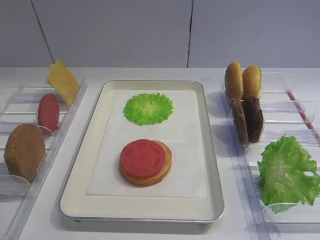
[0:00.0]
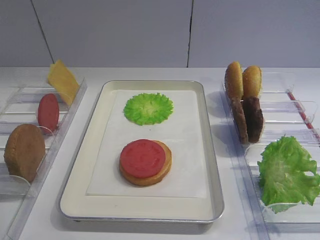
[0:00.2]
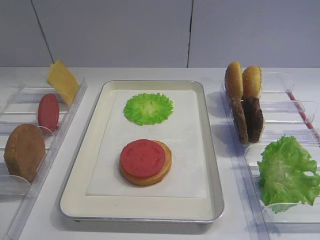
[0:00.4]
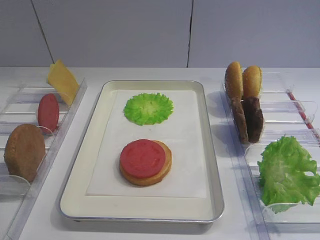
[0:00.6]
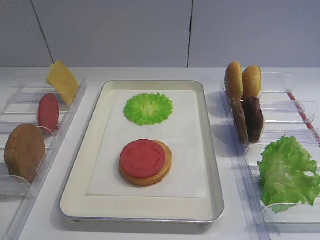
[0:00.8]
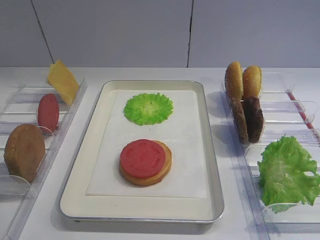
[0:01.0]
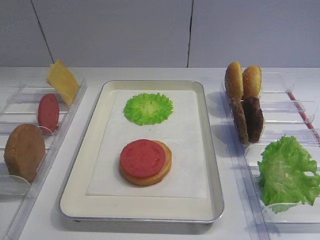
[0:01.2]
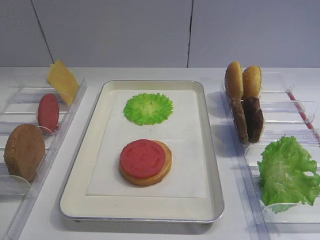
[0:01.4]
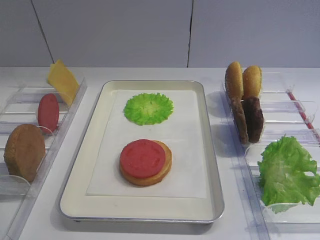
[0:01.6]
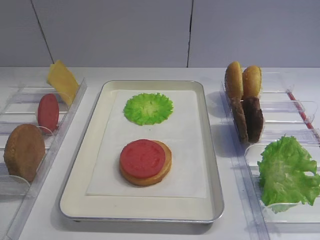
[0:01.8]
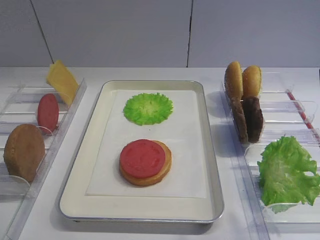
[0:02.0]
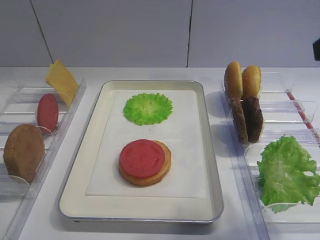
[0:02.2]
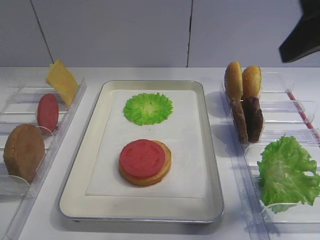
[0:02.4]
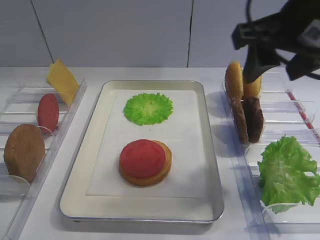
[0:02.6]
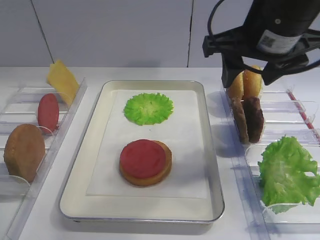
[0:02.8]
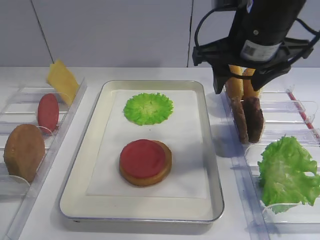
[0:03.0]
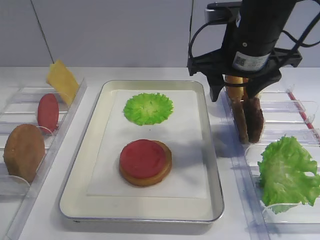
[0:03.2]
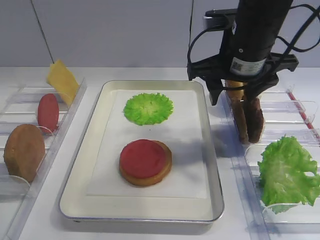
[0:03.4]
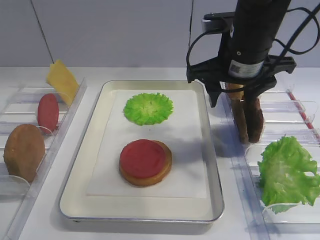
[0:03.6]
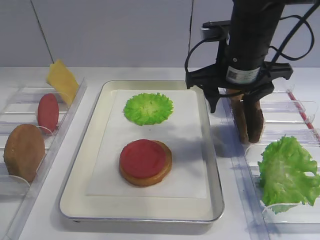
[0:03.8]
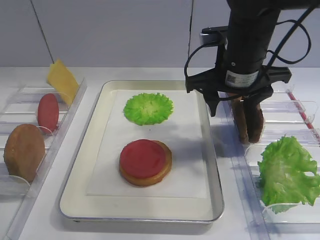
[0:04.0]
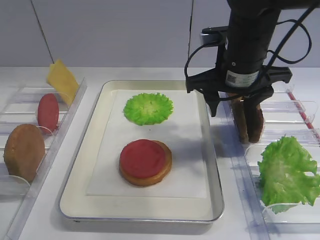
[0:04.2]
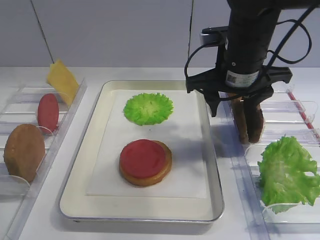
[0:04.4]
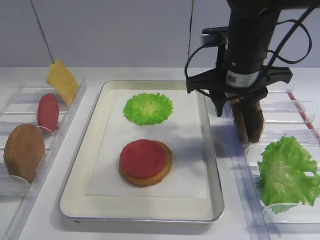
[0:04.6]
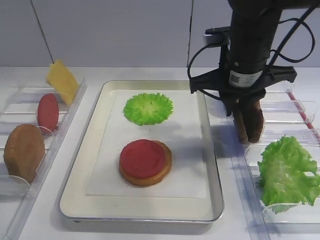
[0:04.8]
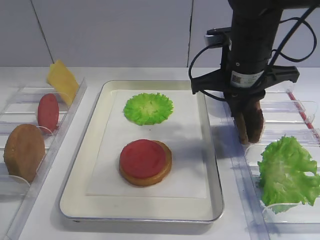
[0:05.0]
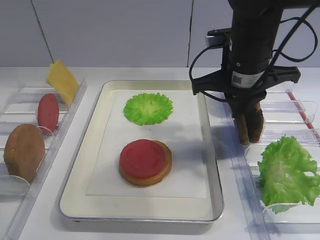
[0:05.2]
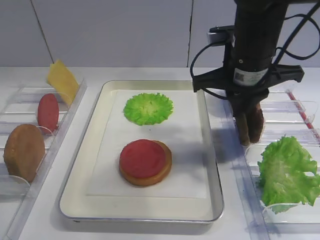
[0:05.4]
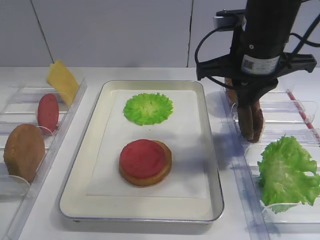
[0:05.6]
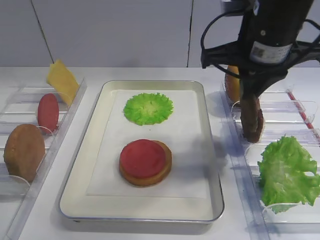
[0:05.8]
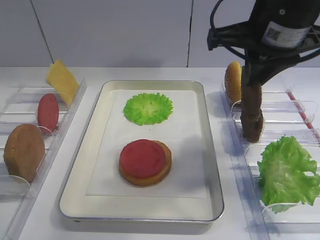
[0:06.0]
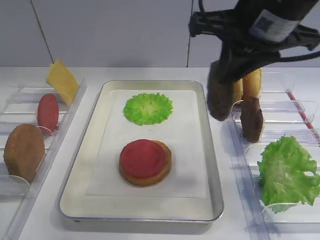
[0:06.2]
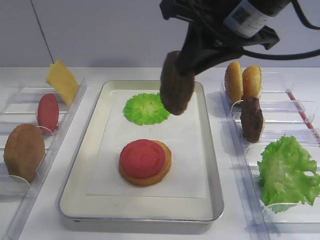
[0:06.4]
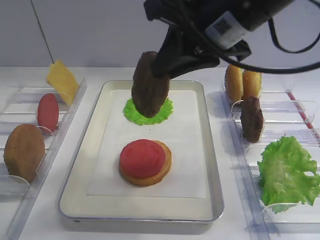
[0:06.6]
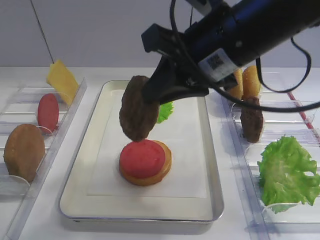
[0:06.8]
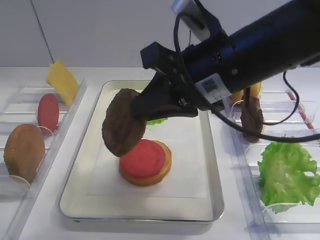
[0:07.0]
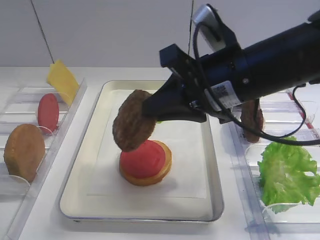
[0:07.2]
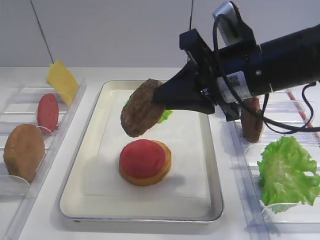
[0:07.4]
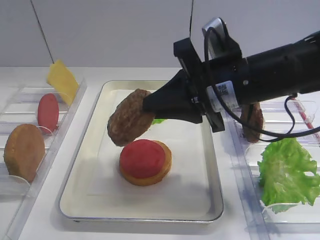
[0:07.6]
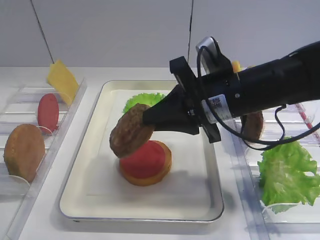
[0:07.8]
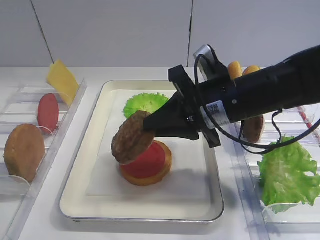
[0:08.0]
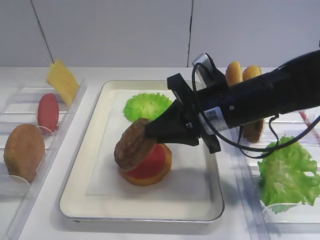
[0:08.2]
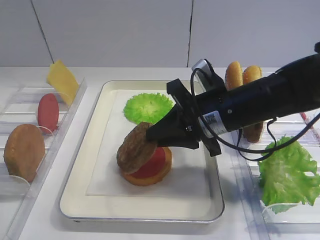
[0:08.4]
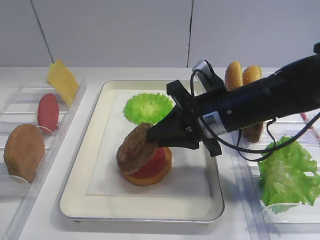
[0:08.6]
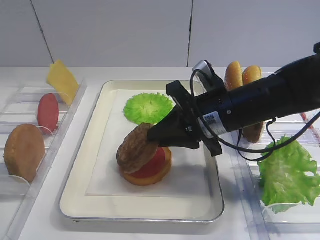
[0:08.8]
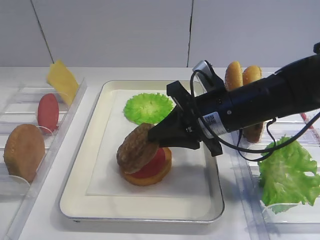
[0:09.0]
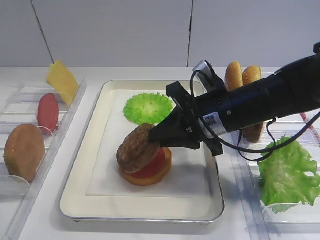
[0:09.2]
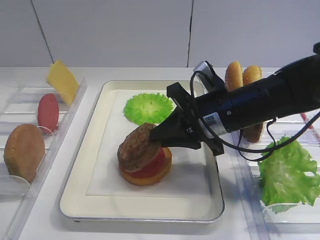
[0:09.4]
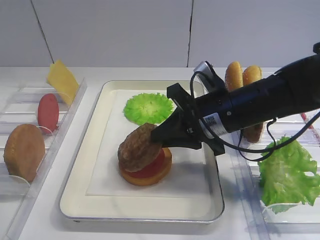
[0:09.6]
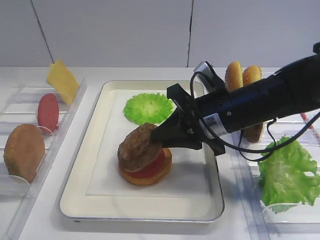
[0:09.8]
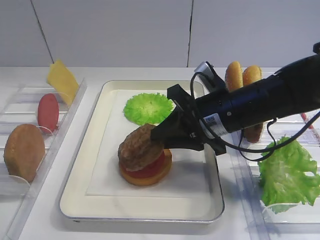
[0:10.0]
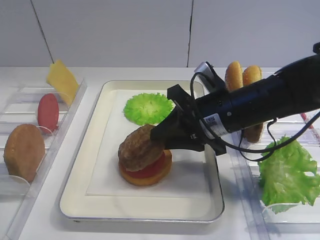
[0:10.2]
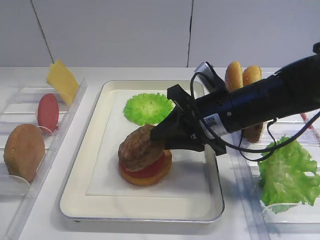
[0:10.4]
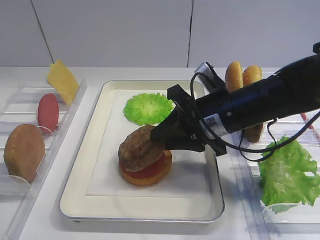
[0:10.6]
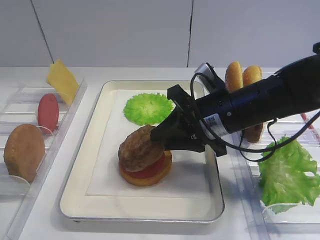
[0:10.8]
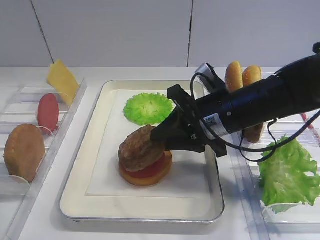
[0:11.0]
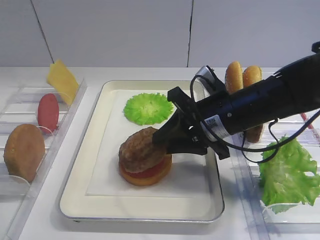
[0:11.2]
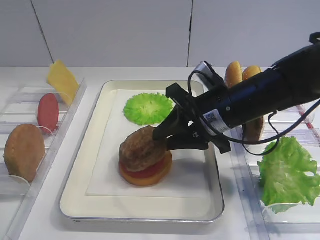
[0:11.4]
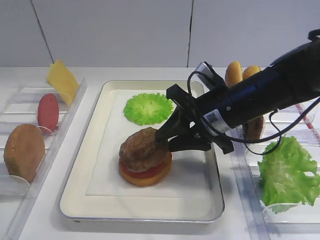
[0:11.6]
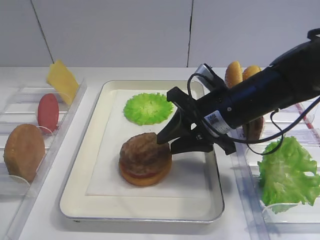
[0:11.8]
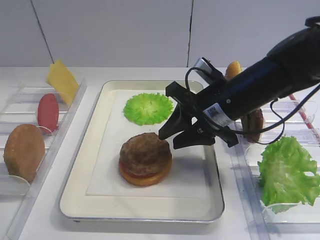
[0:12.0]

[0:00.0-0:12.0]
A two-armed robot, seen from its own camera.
Step, 0:00.0 to 0:05.8: Pick up the cutlet with the right gripper.
0:01.6 to 0:03.0: The right gripper goes about 25 cm forward and to the left.
0:03.0 to 0:04.4: The right gripper moves downward, some 5 cm.
0:04.4 to 0:06.0: The right gripper shifts approximately 10 cm upward, and closes up.
0:06.0 to 0:07.6: The right gripper moves downward, about 10 cm.
0:07.6 to 0:09.0: The right gripper travels downward by about 5 cm.
0:09.0 to 0:10.4: Neither gripper changes place.
0:10.4 to 0:12.0: There are only small adjustments of the grippers.

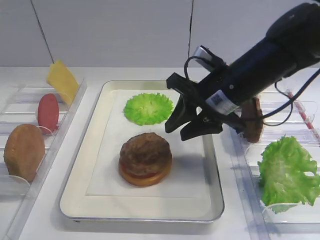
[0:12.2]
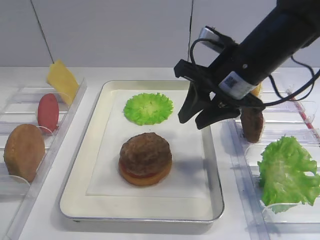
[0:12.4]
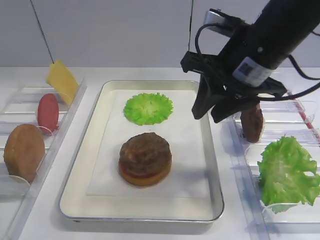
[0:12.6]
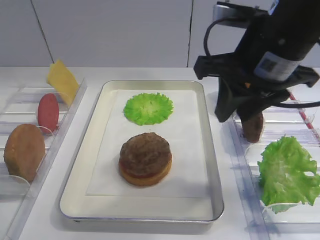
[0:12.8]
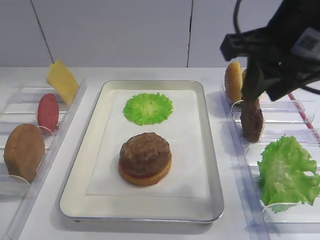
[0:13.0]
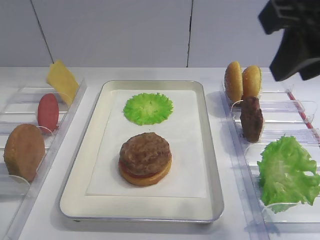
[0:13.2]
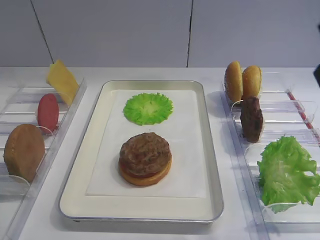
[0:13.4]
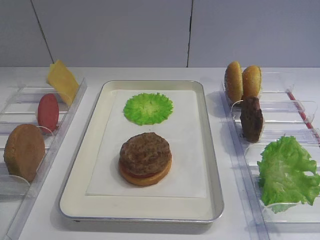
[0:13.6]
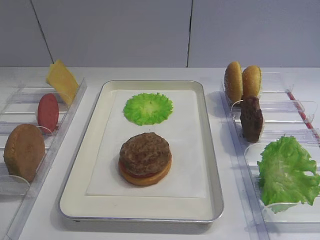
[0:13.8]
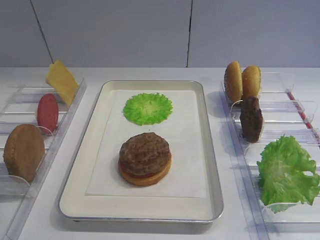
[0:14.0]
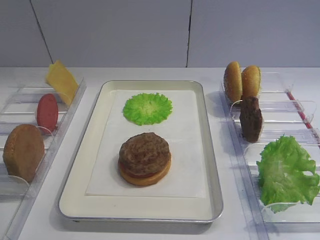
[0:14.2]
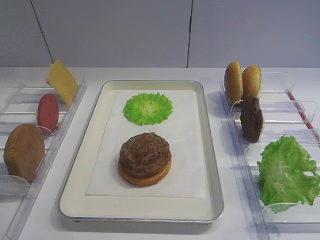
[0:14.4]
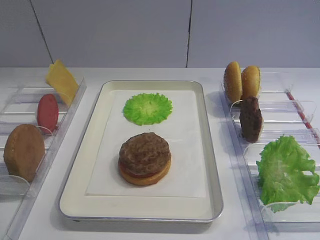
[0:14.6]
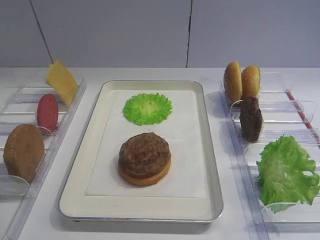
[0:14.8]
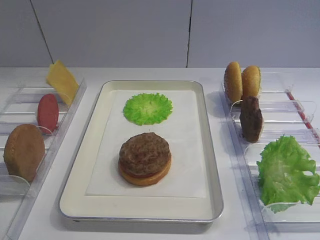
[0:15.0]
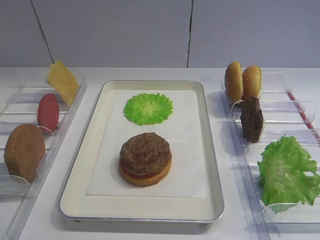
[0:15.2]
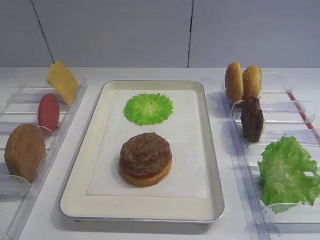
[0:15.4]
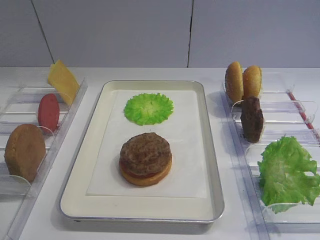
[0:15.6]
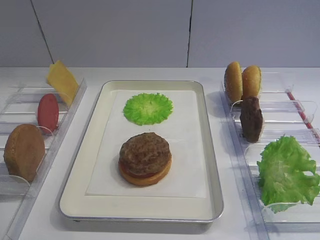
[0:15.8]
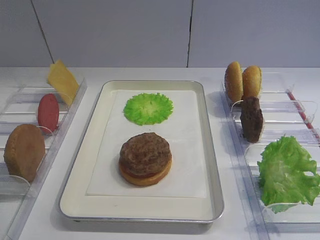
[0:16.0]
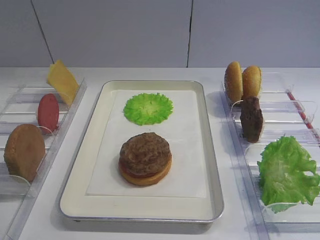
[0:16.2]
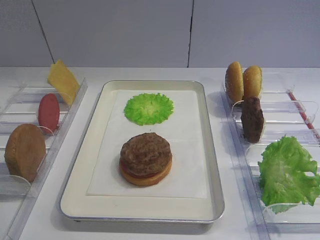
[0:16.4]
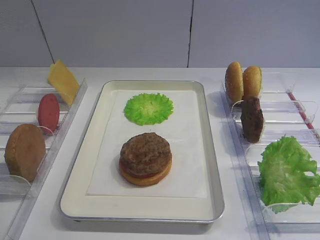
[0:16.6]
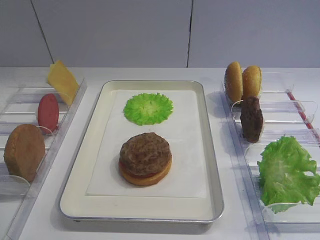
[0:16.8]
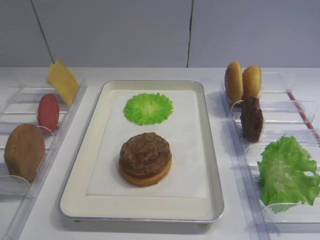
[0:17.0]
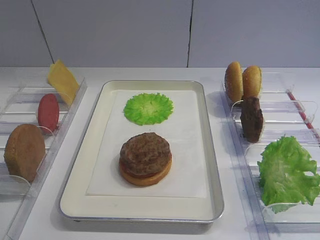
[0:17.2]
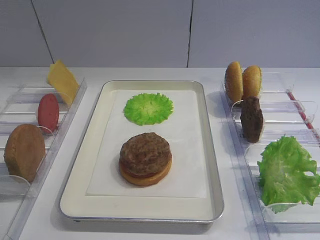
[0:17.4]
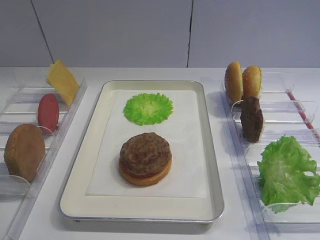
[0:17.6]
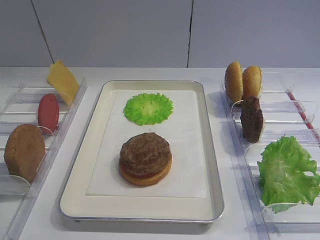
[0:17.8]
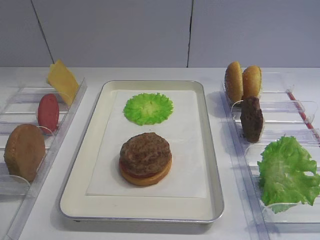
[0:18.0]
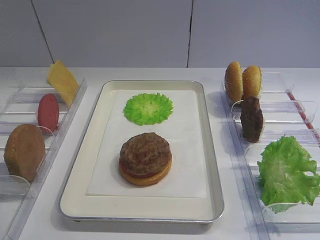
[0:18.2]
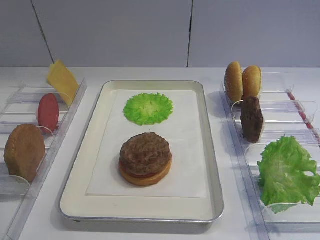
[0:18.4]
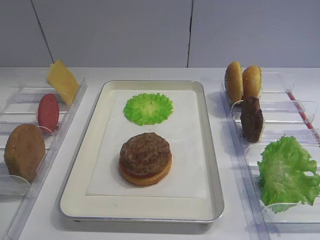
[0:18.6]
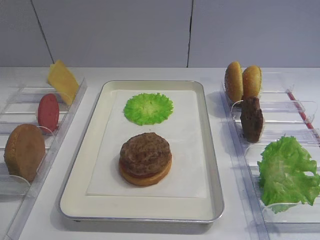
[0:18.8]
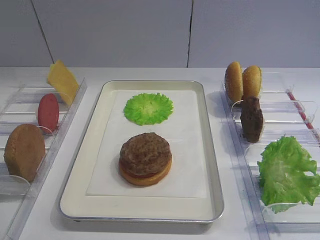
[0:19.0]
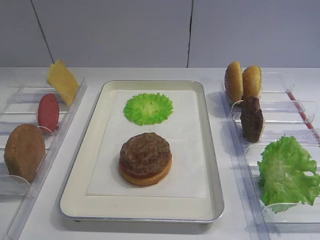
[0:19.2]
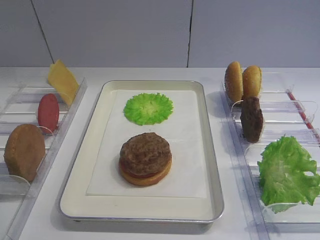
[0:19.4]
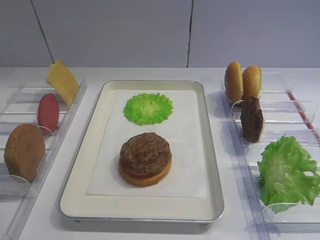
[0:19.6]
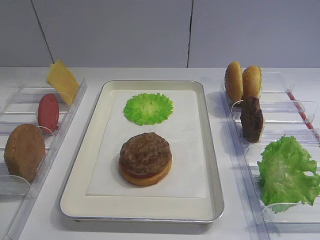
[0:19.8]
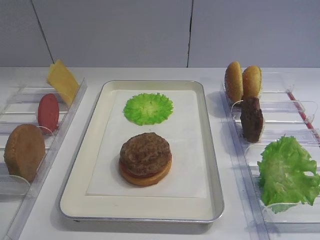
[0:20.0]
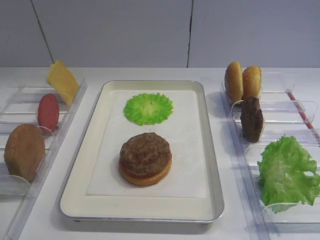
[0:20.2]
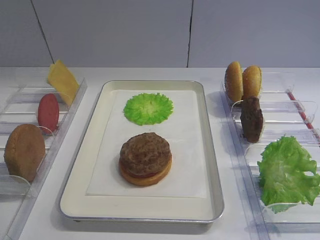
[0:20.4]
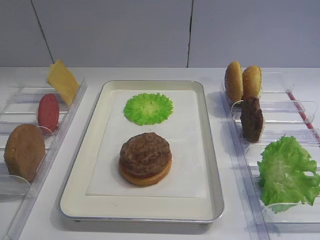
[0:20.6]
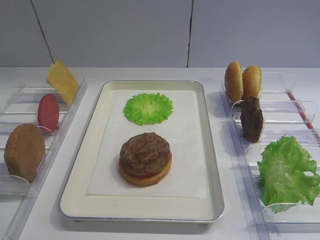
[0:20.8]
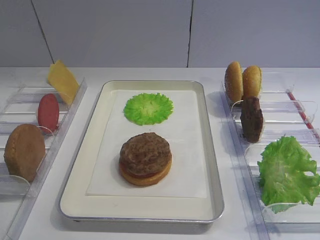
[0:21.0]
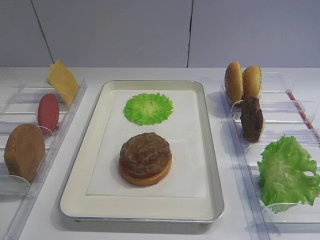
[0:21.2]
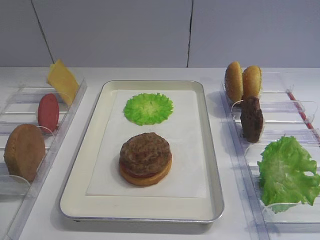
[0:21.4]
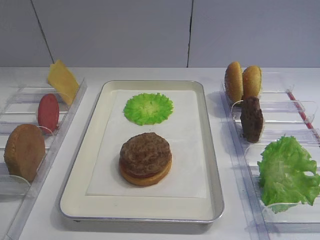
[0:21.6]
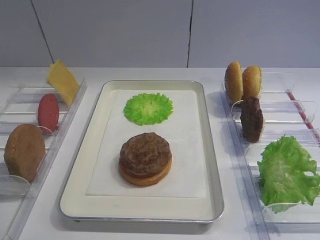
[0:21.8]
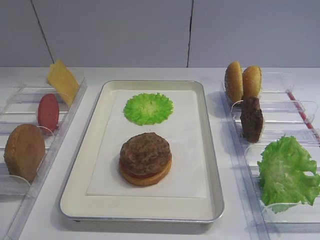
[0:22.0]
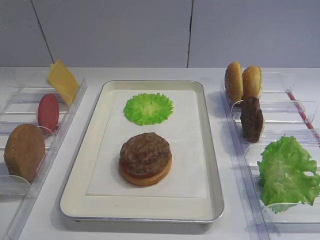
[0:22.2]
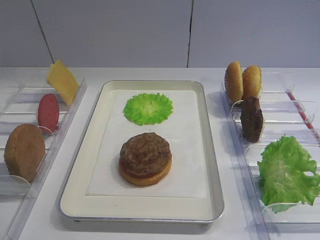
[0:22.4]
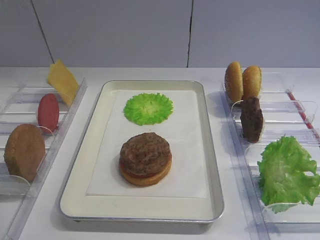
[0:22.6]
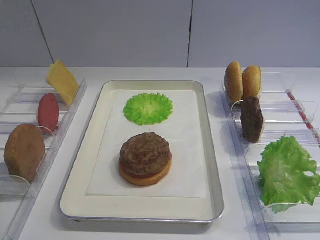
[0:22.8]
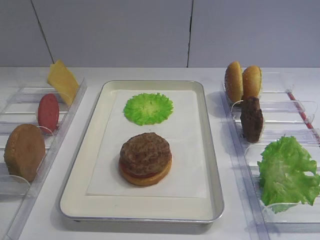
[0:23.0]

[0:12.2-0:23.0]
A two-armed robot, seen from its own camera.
0:12.2 to 0:13.8: The right gripper heads backward, upward and to the right, covering some 30 cm.
0:15.2 to 0:16.8: Both grippers stay about where they are.
0:18.4 to 0:20.0: The two grippers keep their place.
0:21.4 to 0:23.0: Neither gripper changes place.
